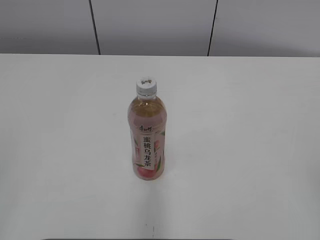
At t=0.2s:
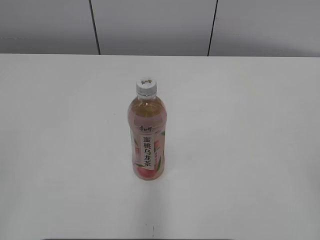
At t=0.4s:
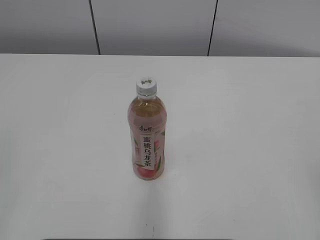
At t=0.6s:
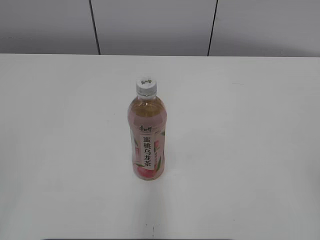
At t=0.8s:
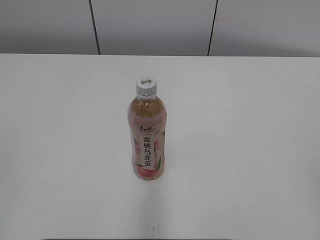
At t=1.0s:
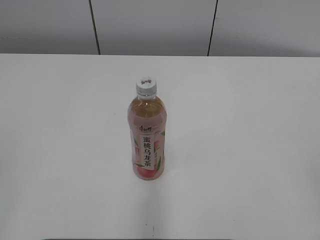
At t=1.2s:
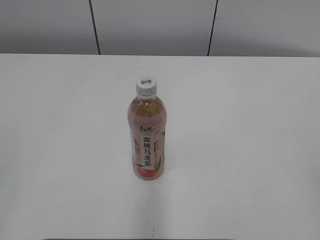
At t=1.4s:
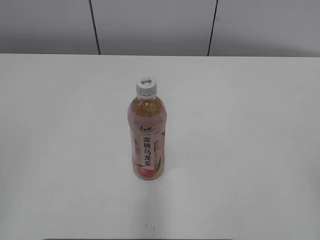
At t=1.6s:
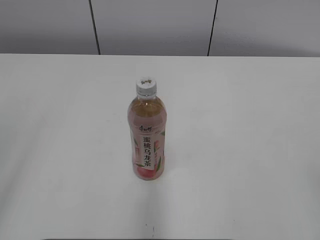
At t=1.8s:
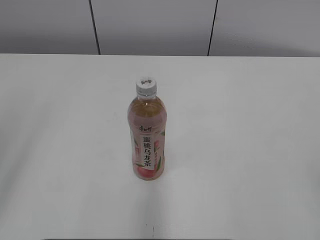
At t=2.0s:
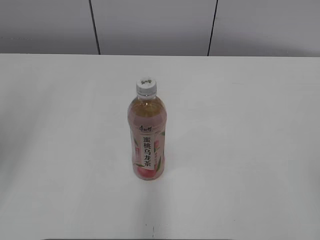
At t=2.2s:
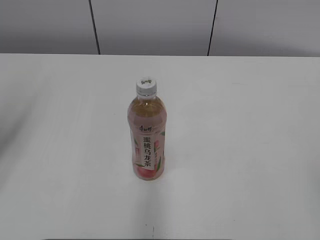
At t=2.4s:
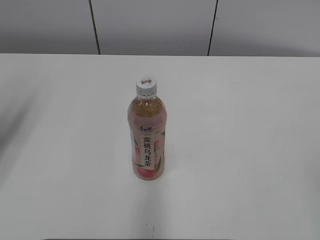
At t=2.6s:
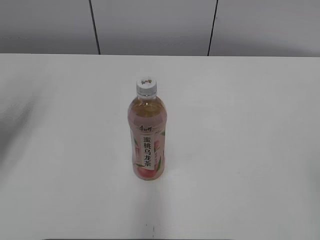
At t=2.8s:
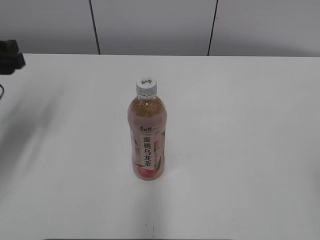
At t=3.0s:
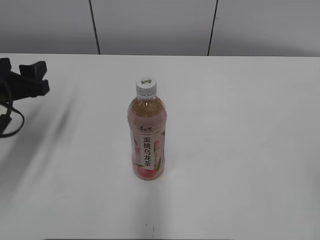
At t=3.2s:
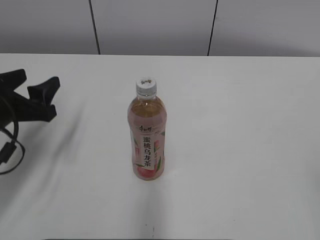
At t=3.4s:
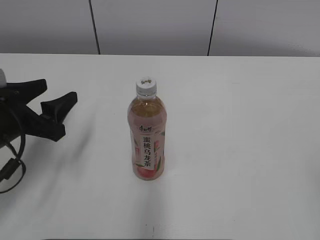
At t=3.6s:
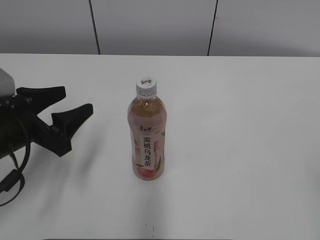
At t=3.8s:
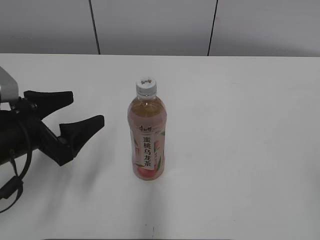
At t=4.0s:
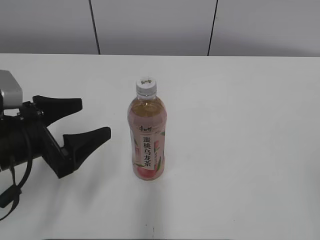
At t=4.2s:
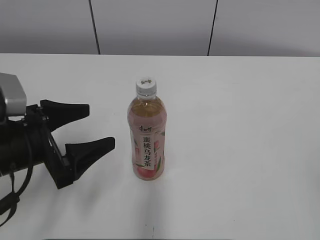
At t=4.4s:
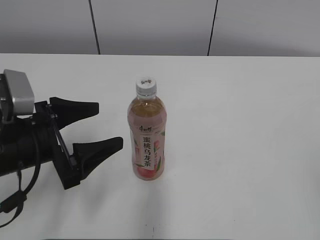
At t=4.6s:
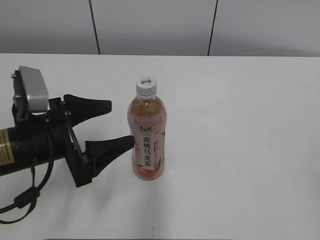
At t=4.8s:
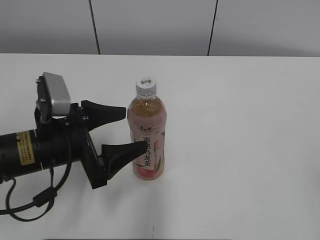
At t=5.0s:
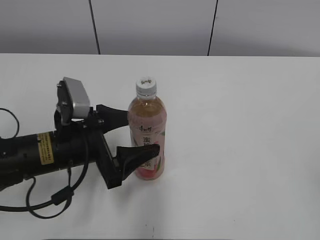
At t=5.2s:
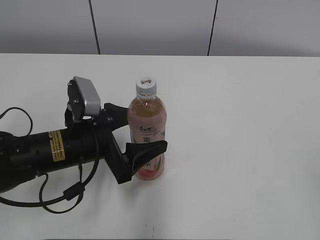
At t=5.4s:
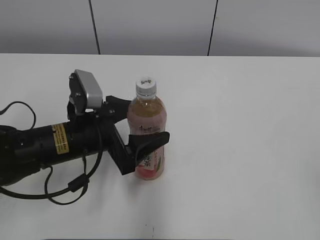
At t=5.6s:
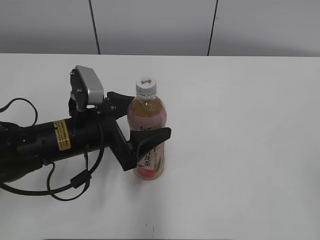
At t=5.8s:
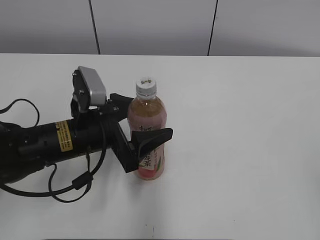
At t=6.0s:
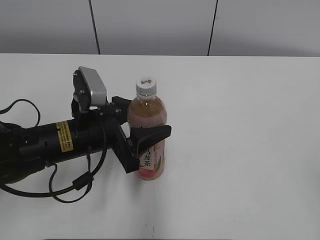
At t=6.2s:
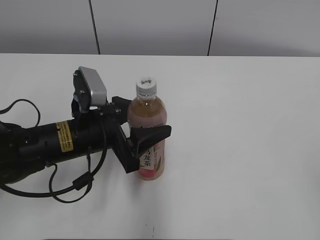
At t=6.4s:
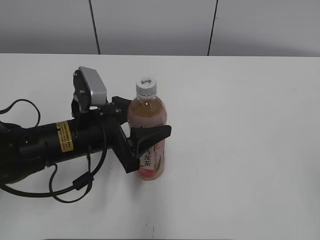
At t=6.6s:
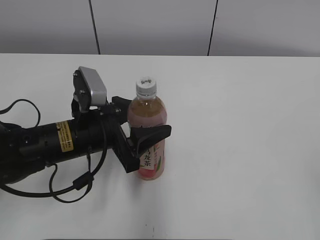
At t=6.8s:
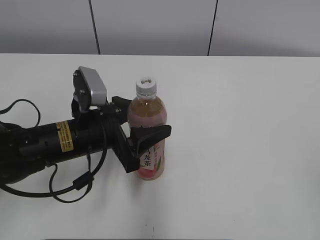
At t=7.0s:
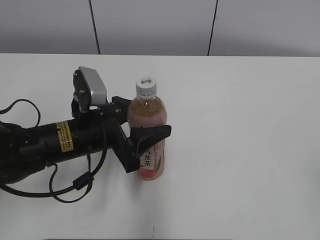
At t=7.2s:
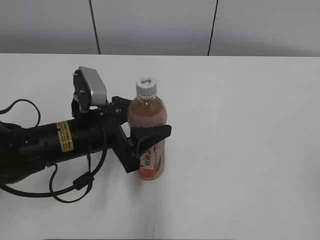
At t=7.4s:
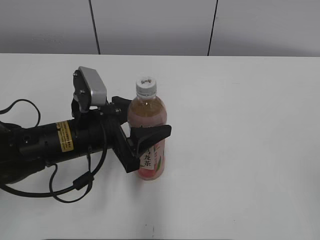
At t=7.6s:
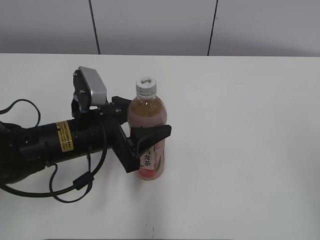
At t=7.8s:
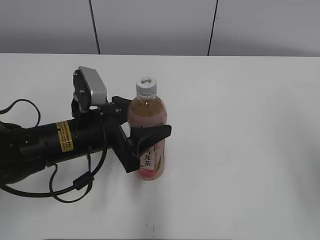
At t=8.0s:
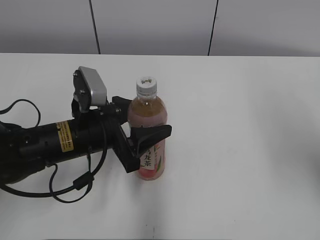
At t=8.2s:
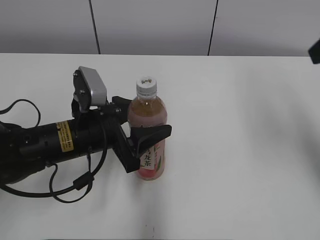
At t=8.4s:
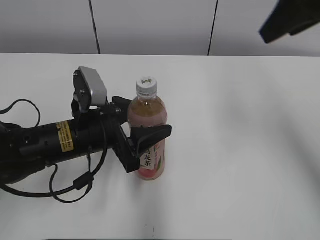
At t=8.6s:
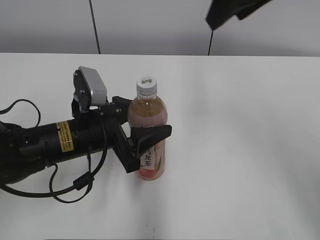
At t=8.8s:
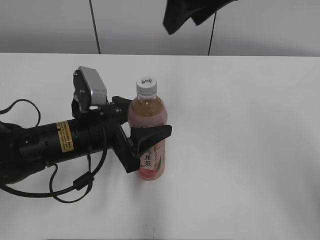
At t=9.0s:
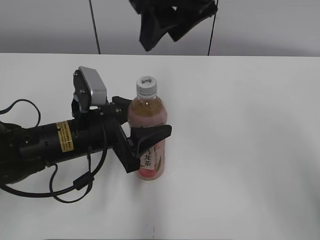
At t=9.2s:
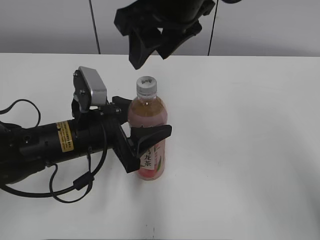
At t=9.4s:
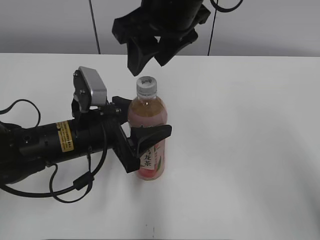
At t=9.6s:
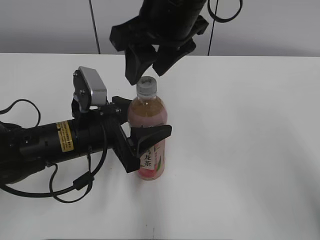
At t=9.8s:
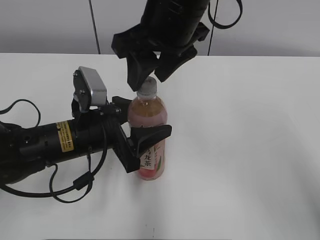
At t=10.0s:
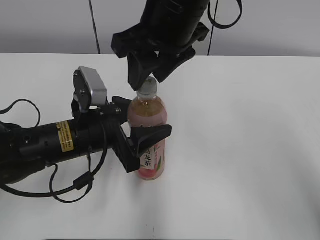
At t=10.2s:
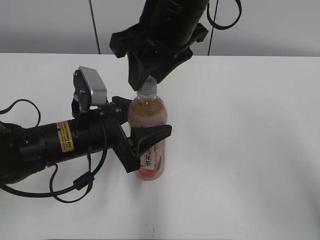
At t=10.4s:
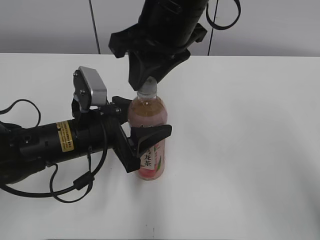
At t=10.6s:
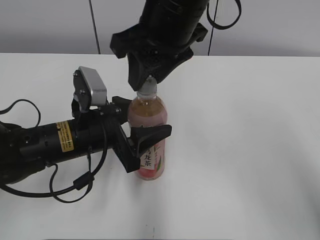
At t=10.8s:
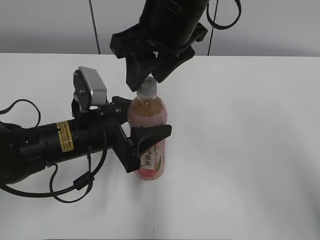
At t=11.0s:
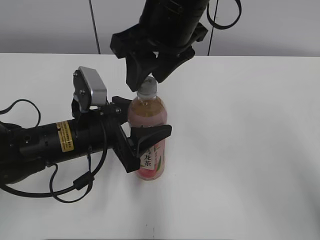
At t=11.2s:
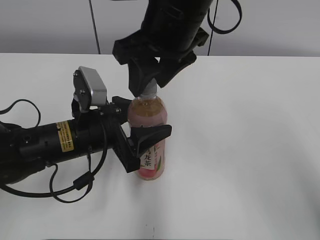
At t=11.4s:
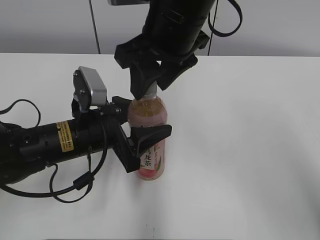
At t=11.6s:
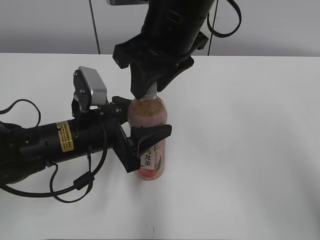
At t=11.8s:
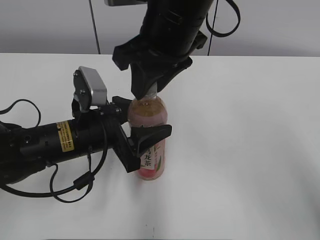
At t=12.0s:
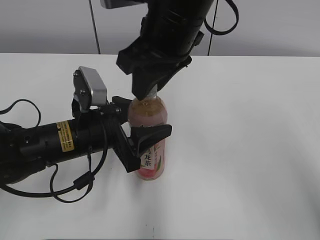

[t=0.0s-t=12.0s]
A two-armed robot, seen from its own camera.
Step, t=0.0s to t=6.4s: Grab the Peach Oolong Tea with the left hand.
t=1.6s to t=3.0s: The left gripper shifts some 30 cm forward and downward.
t=3.0s to t=4.4s: The left gripper is displaced backward, to the right and downward by roughly 10 cm, and opens.
t=4.4s to t=6.0s: The left gripper heads to the right, covering some 10 cm.
t=7.6s to t=9.0s: The right gripper shifts some 40 cm forward and to the left.
t=9.0s to t=10.4s: The right gripper goes approximately 5 cm downward, and closes up.
t=10.4s to t=12.0s: The right gripper opens, then closes once more.

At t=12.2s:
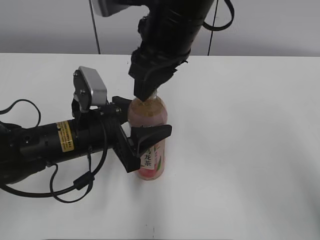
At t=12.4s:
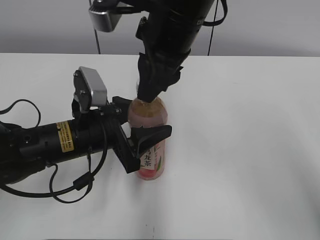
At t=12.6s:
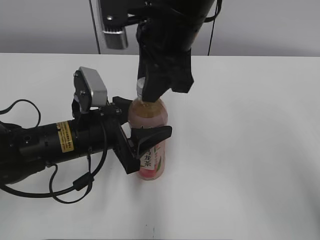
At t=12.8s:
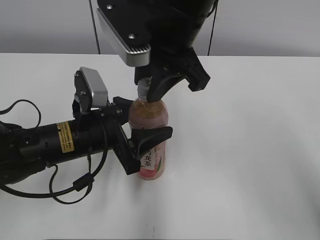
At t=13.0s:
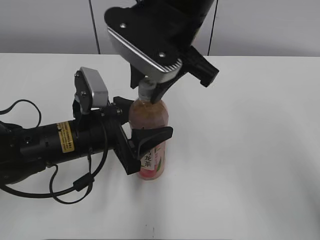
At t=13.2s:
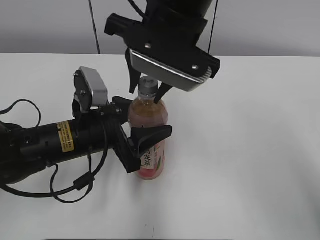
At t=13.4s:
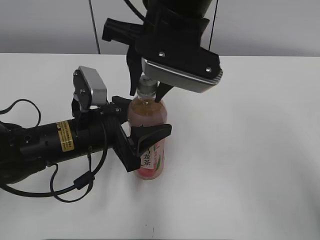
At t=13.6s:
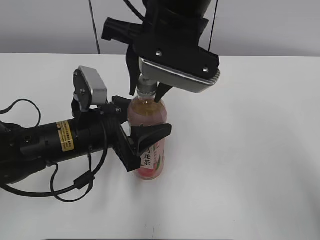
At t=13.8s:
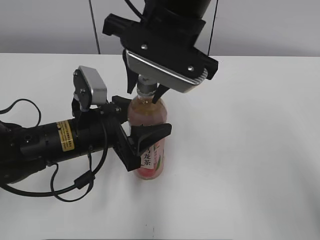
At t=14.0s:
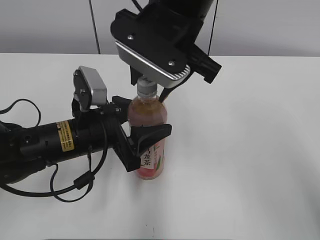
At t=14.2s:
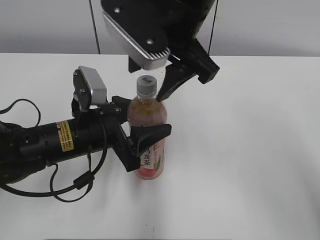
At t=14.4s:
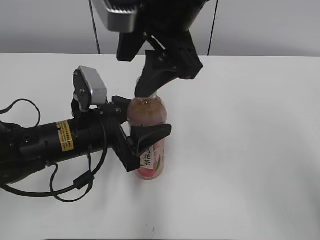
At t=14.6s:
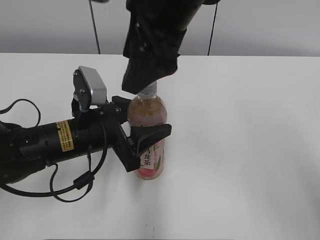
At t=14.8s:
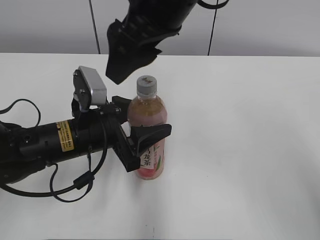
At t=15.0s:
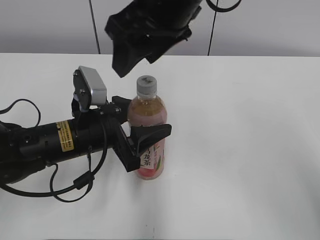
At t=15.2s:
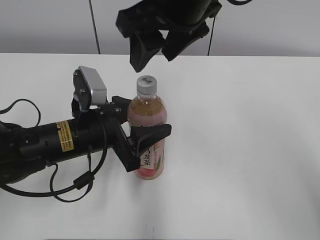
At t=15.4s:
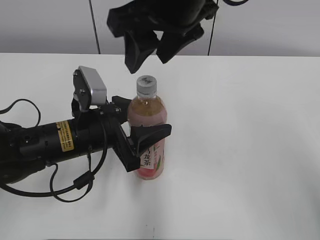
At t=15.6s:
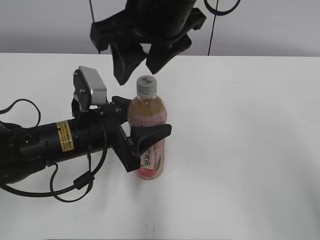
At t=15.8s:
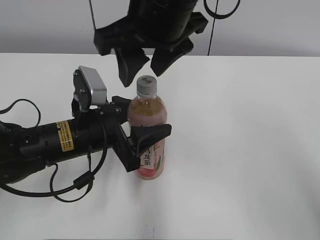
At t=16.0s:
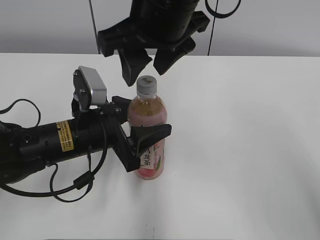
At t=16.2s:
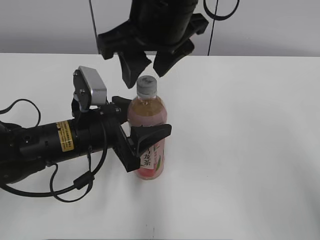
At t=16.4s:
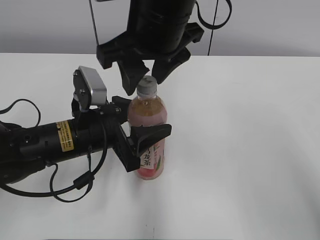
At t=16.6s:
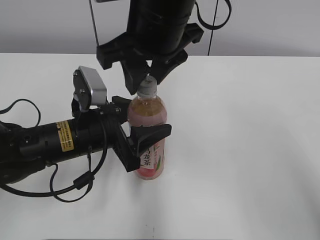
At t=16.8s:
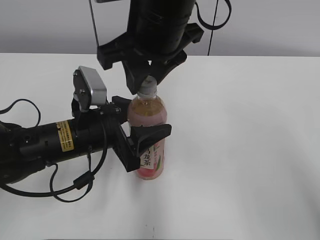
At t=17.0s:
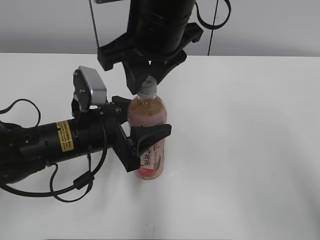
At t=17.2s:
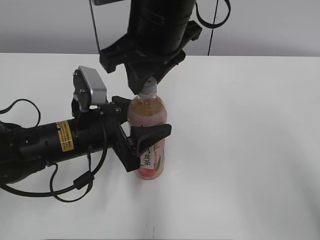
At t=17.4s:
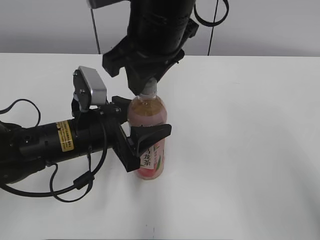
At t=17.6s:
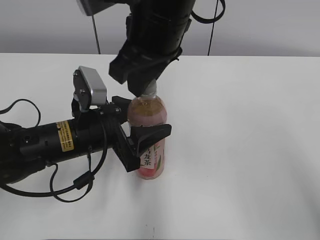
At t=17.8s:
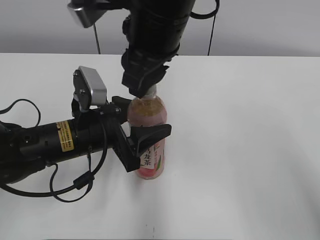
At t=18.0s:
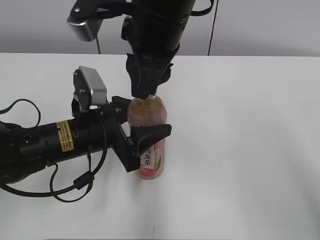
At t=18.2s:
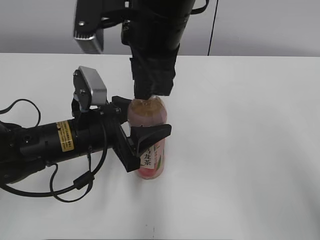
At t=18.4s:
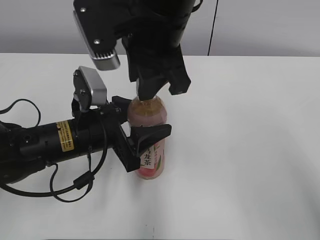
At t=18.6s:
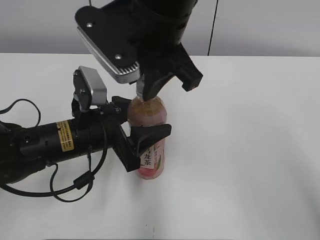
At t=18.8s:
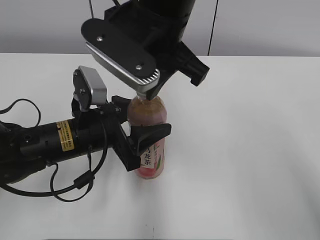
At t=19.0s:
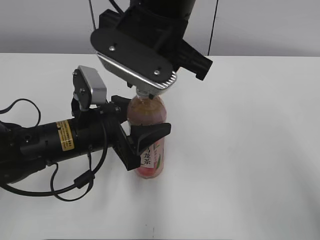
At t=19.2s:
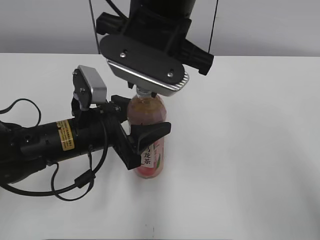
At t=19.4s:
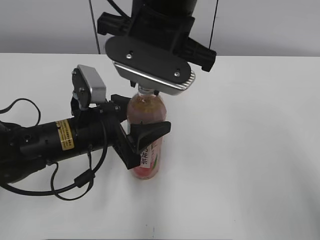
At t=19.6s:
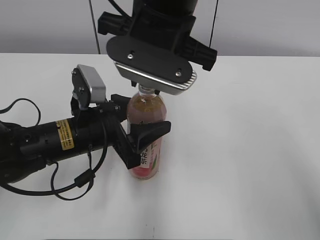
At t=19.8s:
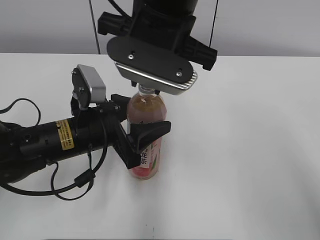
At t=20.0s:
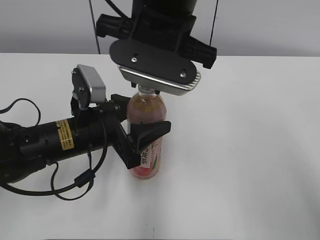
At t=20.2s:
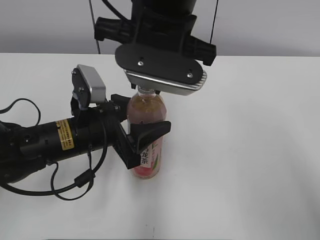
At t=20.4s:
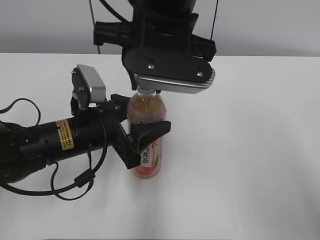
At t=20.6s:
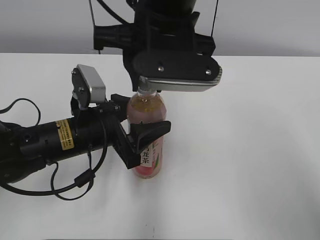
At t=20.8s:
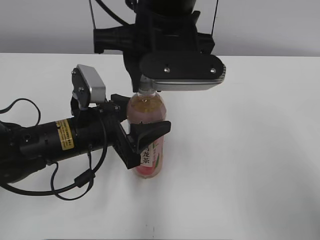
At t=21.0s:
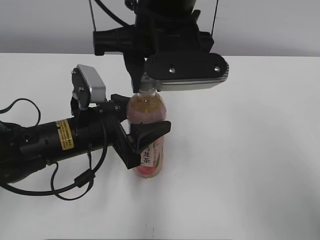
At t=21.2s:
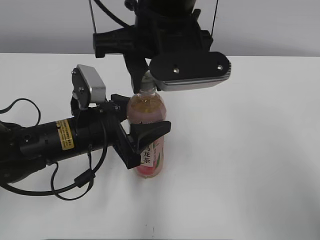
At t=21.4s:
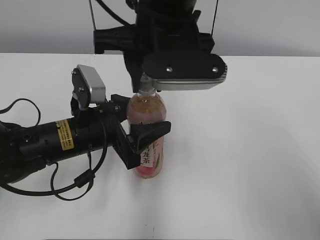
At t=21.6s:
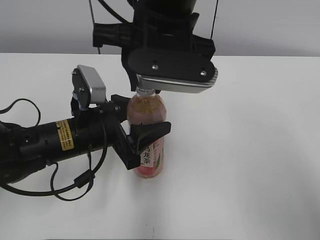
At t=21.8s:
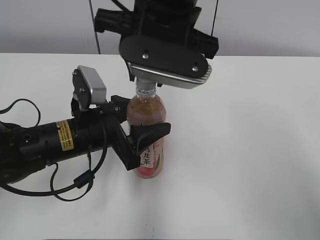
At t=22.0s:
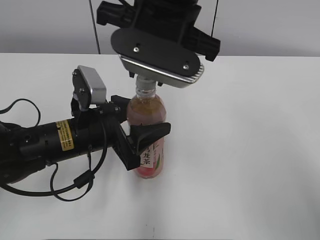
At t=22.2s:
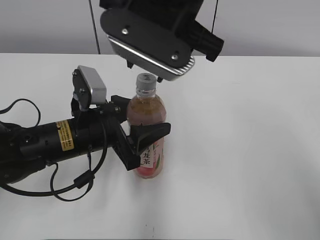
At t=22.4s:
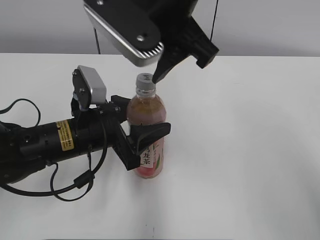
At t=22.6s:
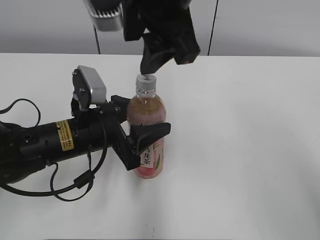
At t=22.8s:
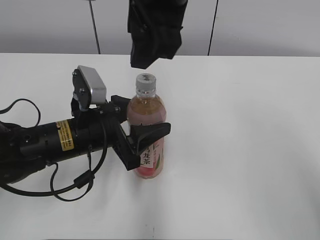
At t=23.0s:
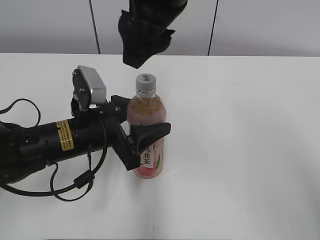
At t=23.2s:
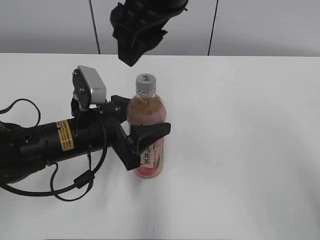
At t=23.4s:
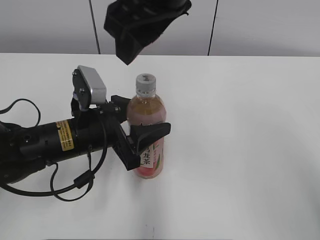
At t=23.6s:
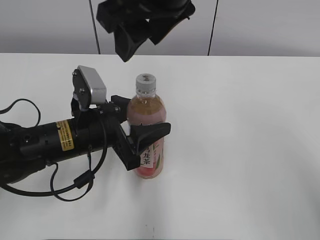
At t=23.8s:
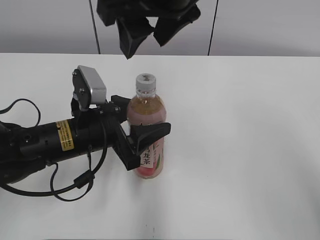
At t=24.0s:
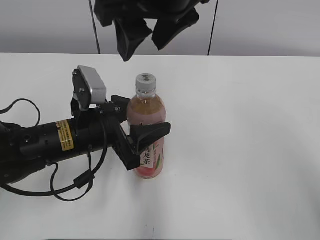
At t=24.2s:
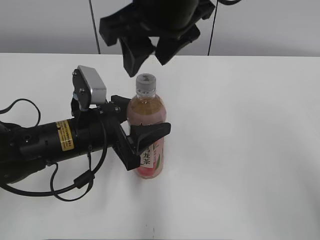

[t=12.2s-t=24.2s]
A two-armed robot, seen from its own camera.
t=13.8s to t=15.2s: The right gripper opens.
t=15.2s to t=16.6s: There are only small adjustments of the grippers.
t=16.6s to t=18.2s: The right gripper closes.
t=21.2s to t=22.6s: The right gripper opens its fingers.
